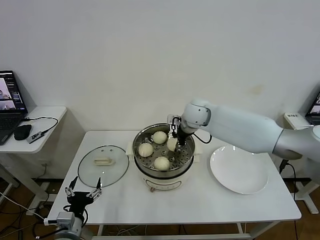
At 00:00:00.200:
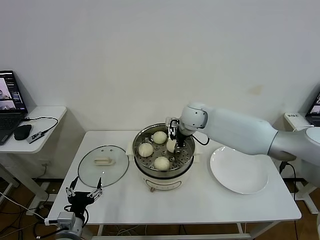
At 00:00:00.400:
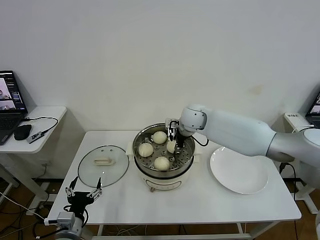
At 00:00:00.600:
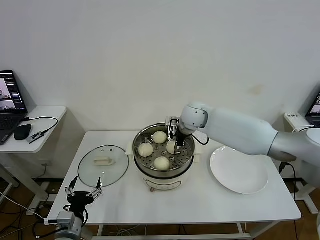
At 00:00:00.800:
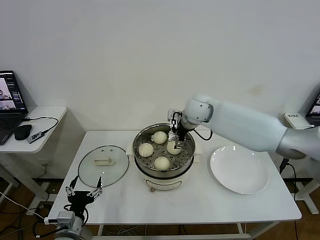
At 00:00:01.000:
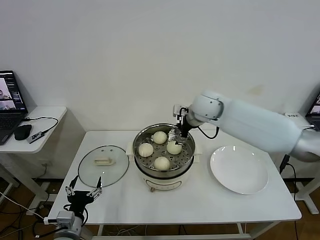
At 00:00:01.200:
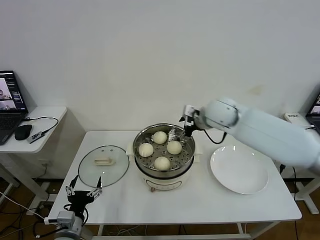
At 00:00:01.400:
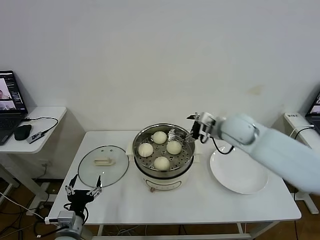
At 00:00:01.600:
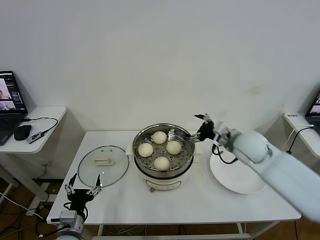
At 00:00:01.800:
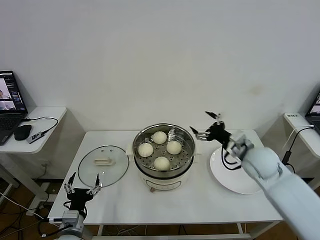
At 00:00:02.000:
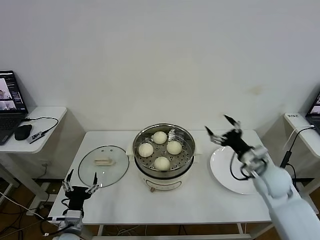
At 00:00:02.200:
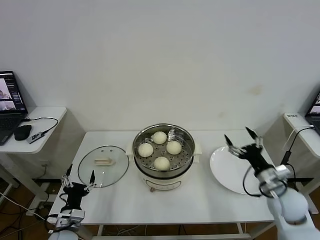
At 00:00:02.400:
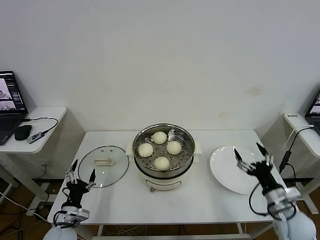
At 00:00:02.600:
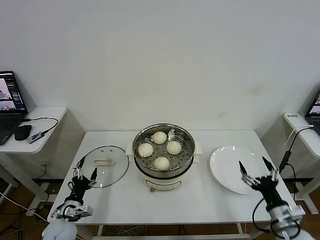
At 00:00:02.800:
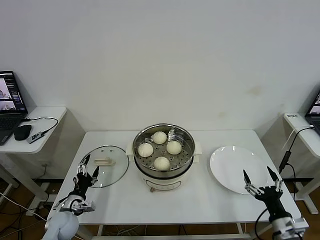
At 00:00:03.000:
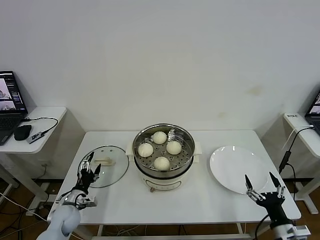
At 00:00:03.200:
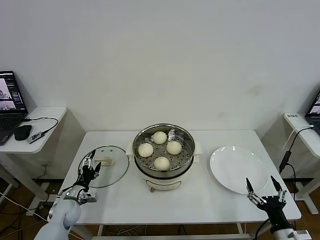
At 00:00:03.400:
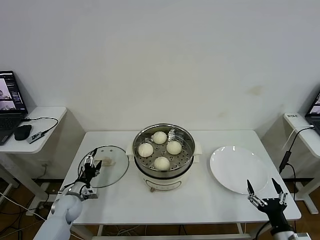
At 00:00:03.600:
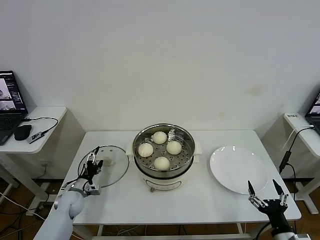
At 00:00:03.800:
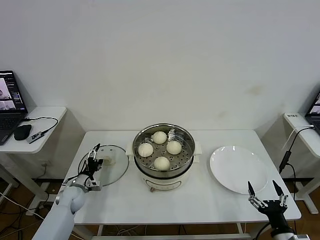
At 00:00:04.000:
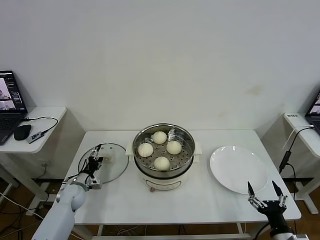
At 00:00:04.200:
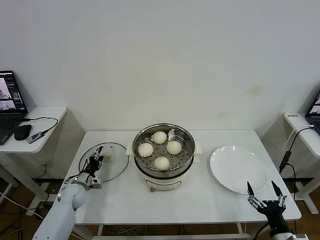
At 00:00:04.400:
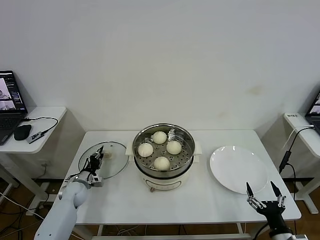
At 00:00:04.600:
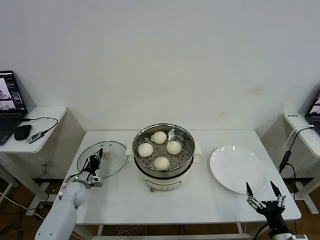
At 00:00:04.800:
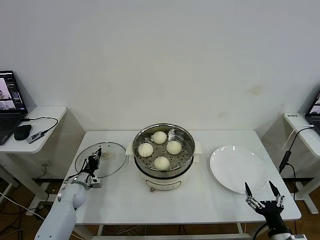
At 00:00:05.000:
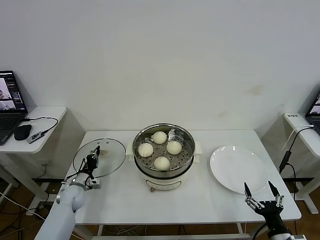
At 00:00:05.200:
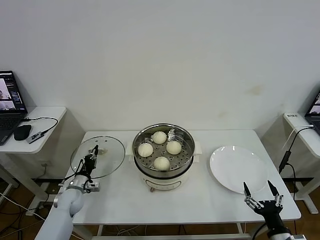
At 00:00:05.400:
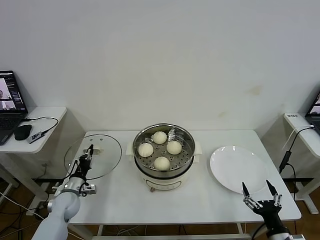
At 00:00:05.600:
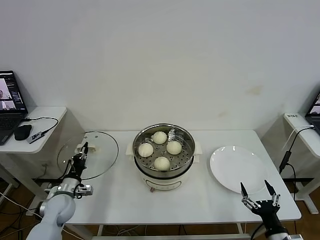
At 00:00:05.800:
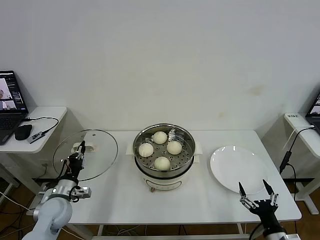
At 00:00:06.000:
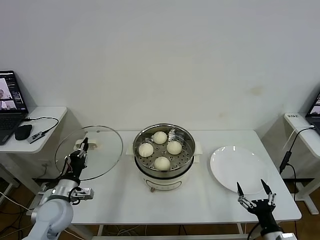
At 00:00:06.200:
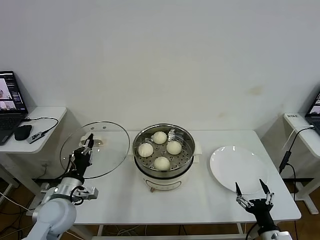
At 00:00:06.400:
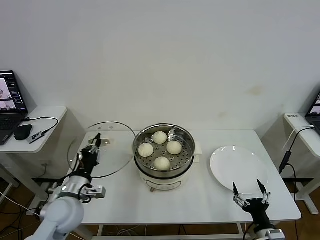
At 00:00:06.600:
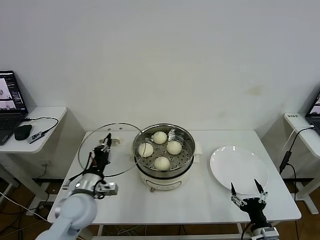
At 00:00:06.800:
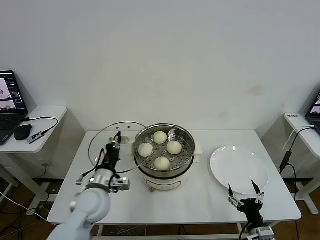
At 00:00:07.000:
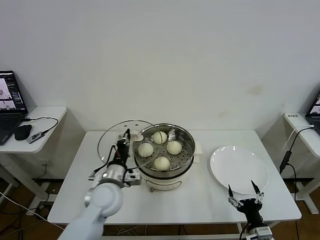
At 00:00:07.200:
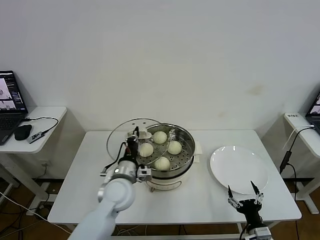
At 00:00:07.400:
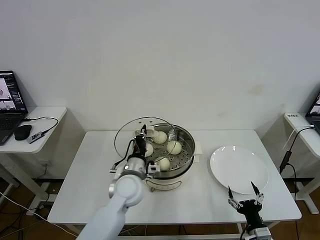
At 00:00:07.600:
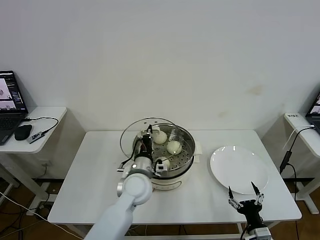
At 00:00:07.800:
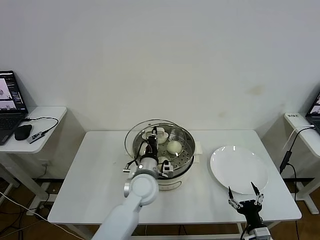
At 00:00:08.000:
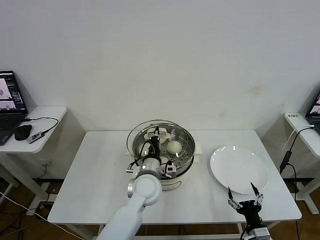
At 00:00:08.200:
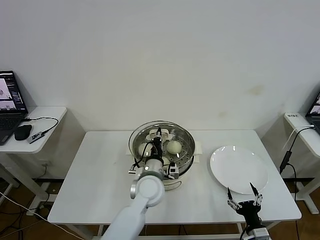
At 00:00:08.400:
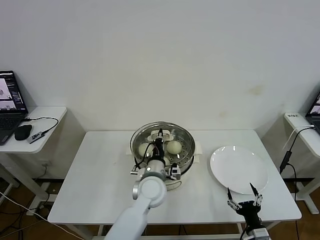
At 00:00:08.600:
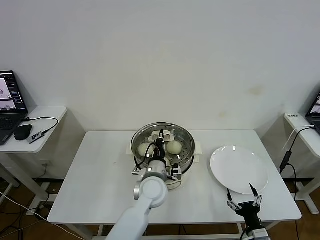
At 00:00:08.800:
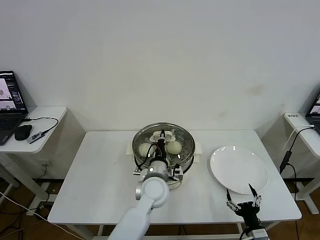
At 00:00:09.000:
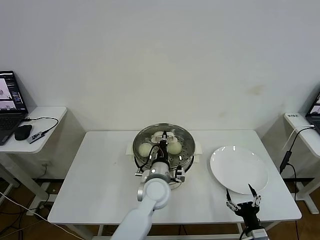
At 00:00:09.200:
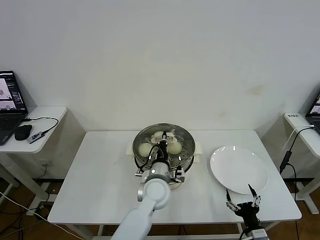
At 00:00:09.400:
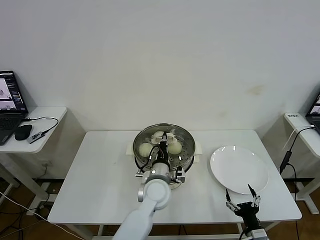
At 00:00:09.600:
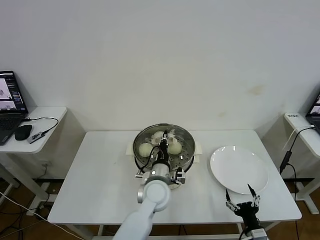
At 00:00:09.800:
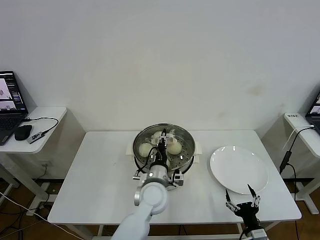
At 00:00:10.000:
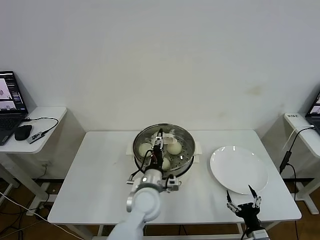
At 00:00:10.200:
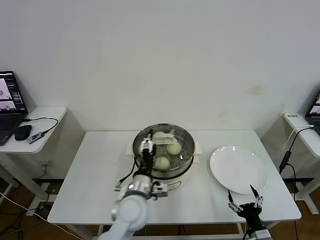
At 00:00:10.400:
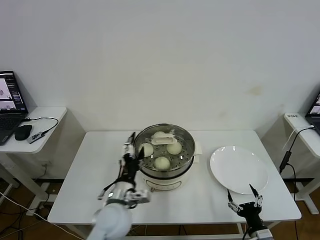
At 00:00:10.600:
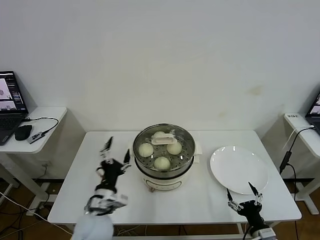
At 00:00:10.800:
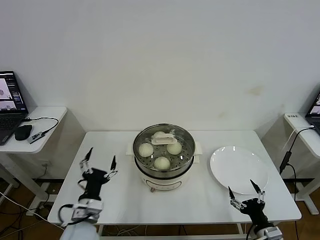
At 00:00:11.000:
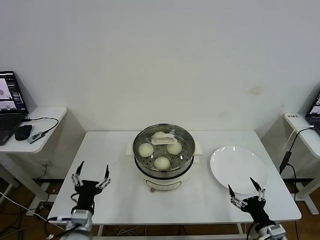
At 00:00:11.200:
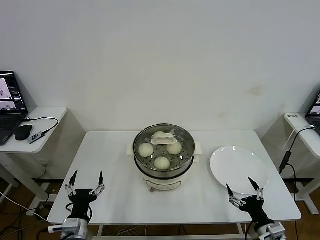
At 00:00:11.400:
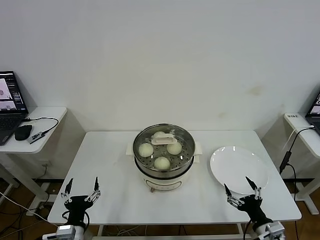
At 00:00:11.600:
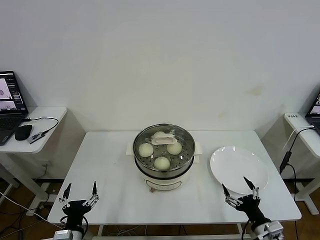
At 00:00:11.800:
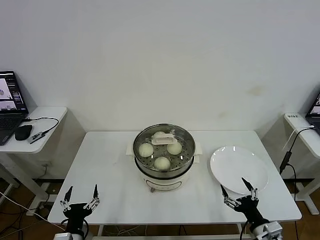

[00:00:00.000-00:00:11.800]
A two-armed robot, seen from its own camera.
Task of the whole recording: take steamed baozi put them in steamer then cover it.
Step, 00:00:00.800 to 00:00:04.600: Grasp the pot lid with left gripper.
Step, 00:00:04.800 to 00:00:10.000: Place the pot lid on the steamer with left gripper.
00:00:00.000 to 00:00:01.400: The right gripper heads to the right and backward, covering some 10 cm, and opens up.
00:00:01.400 to 00:00:03.000: The right gripper travels backward, downward and to the right by about 40 cm. Meanwhile the left gripper is displaced forward, downward and to the left by approximately 15 cm.
00:00:03.000 to 00:00:04.400: The left gripper moves forward, about 10 cm, and closes up.
00:00:04.400 to 00:00:06.000: The left gripper is displaced upward and backward by about 20 cm, and closes.
00:00:06.000 to 00:00:07.400: The right gripper ends up approximately 5 cm from where it was, while the left gripper goes approximately 20 cm to the right.
00:00:07.400 to 00:00:08.800: The left gripper goes approximately 10 cm to the right.
00:00:08.800 to 00:00:10.400: The left gripper heads to the left and backward, covering some 10 cm, and opens.
00:00:10.400 to 00:00:11.800: The left gripper travels to the left, backward and downward by roughly 20 cm. Meanwhile the right gripper is displaced upward by about 5 cm.
